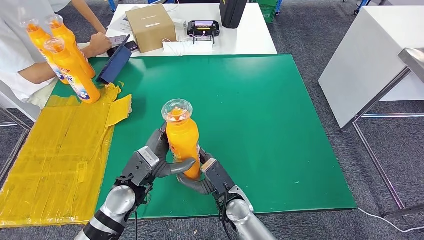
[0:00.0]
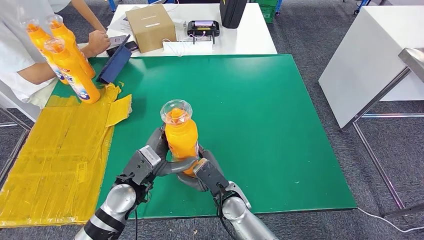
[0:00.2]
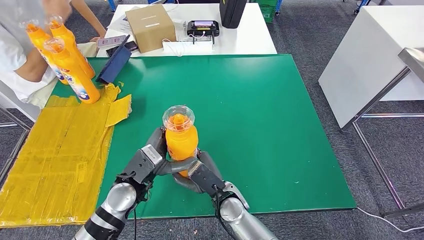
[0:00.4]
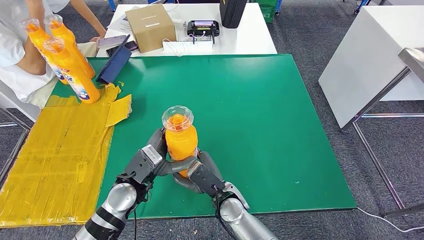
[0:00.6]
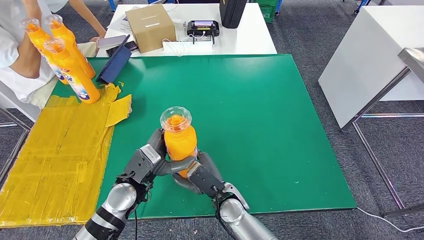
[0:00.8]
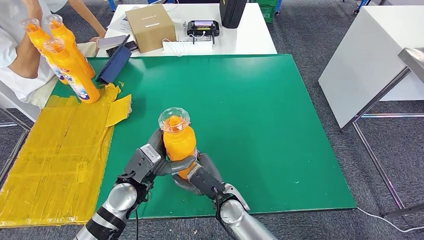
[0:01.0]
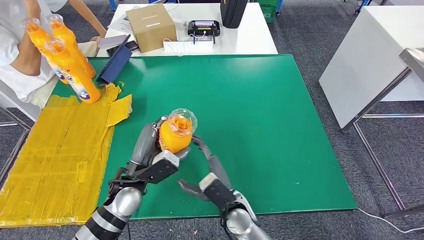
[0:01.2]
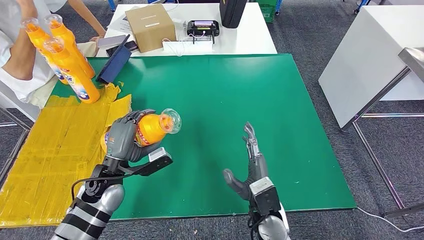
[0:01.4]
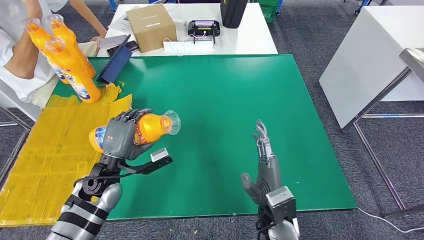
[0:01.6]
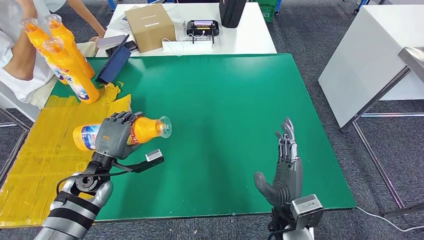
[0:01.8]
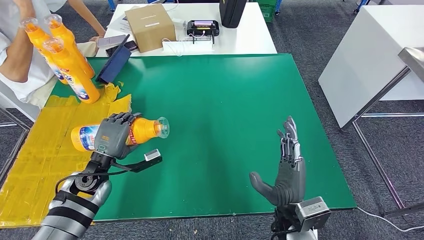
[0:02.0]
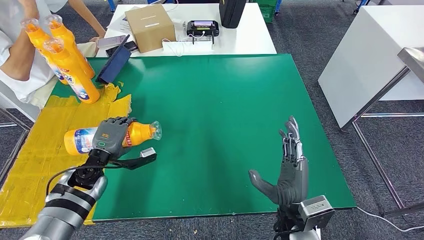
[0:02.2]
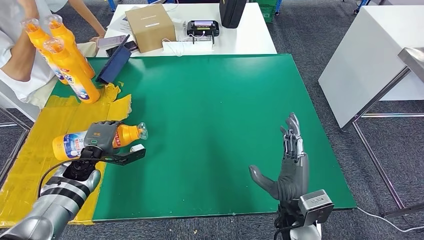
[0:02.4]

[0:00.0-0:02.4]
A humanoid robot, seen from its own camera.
Step, 0:00.0 to 0:02.4: Flip the bottle to face forward.
